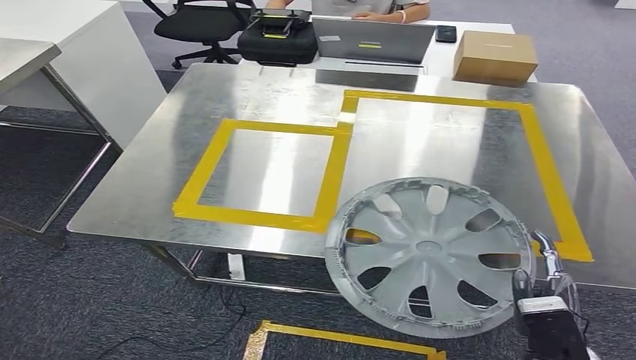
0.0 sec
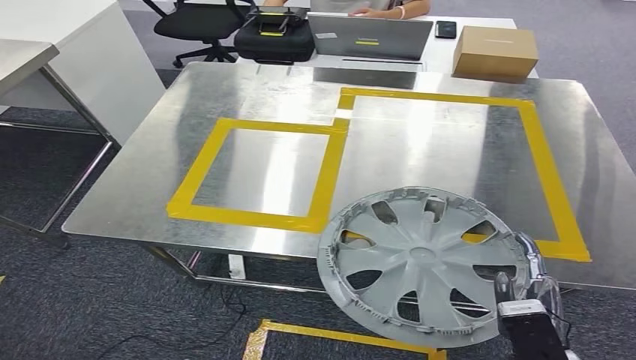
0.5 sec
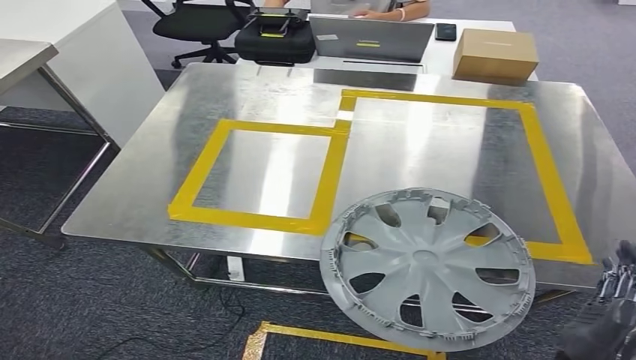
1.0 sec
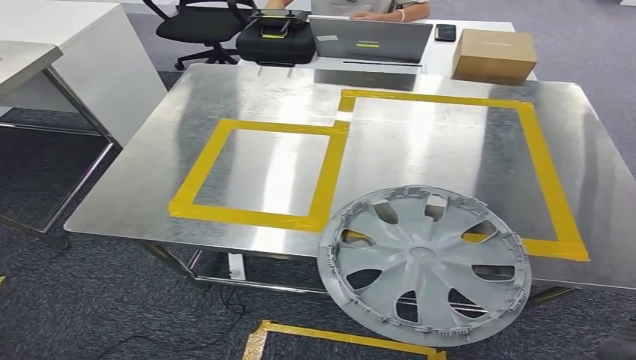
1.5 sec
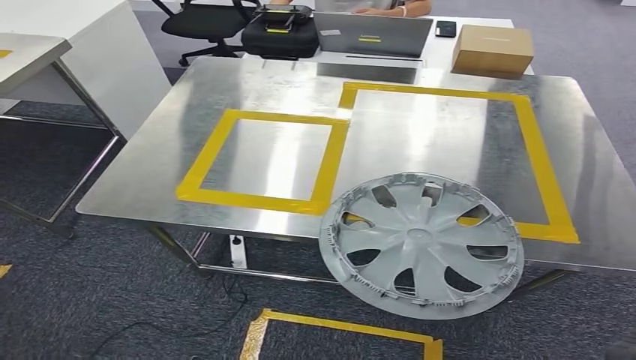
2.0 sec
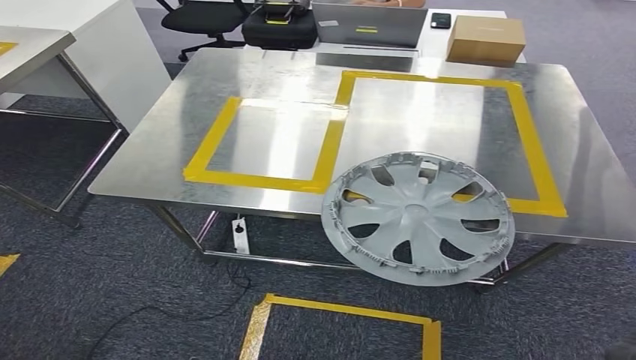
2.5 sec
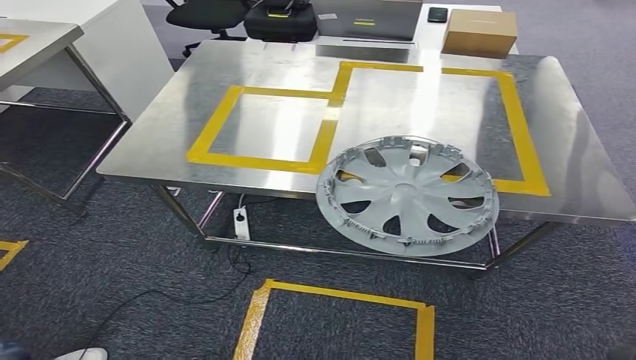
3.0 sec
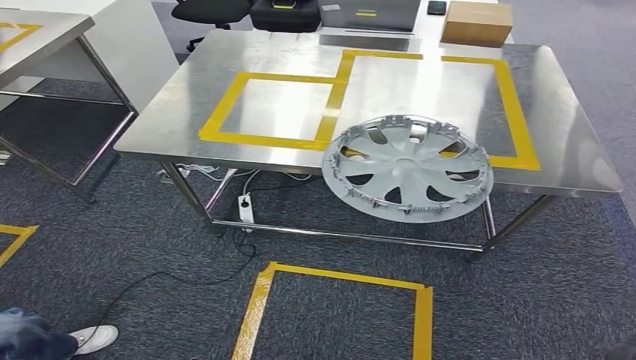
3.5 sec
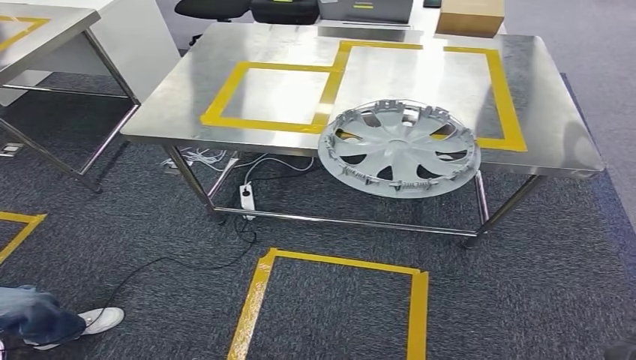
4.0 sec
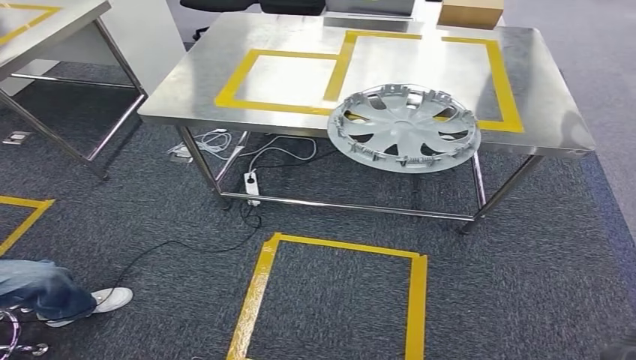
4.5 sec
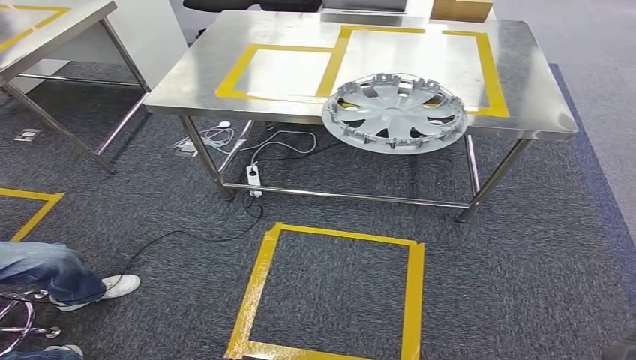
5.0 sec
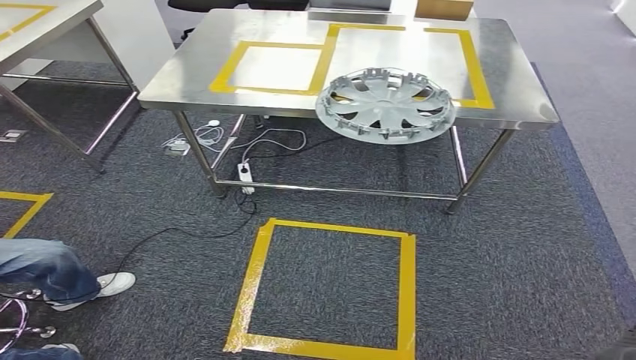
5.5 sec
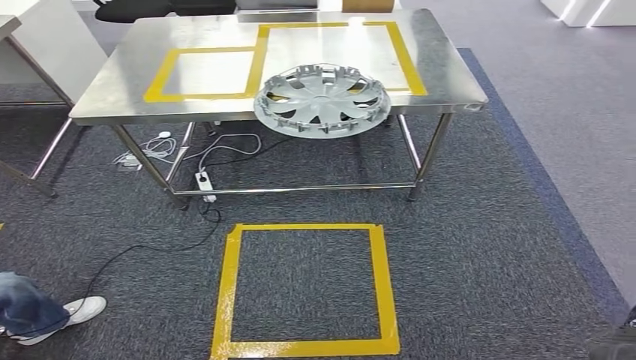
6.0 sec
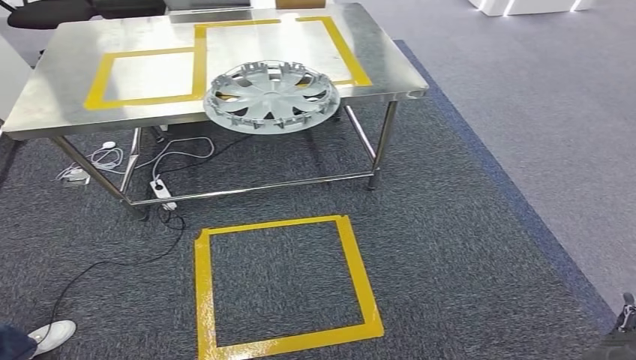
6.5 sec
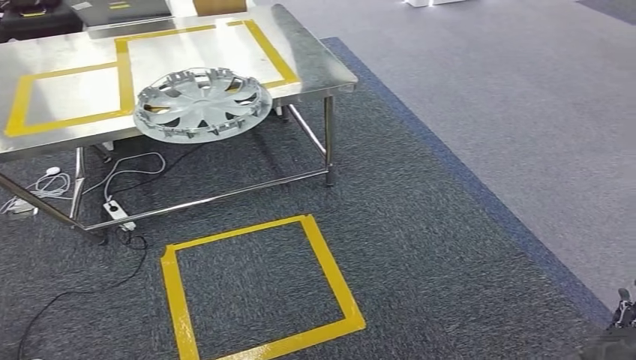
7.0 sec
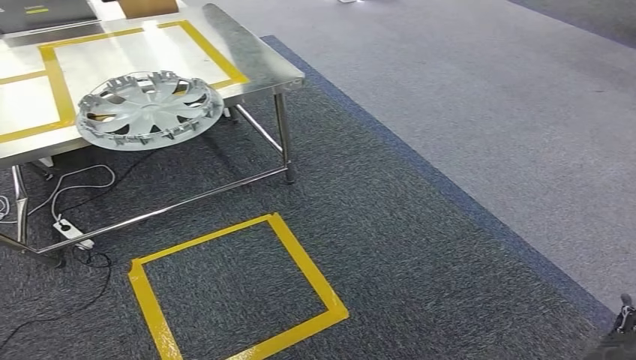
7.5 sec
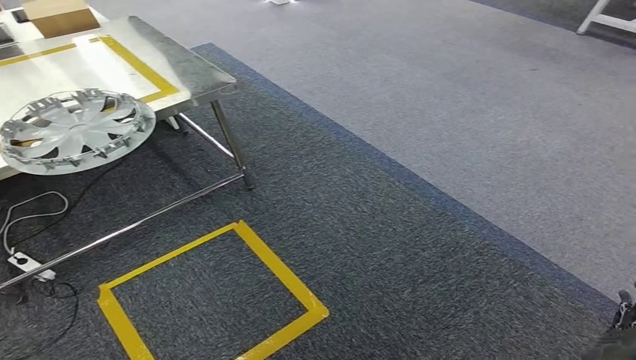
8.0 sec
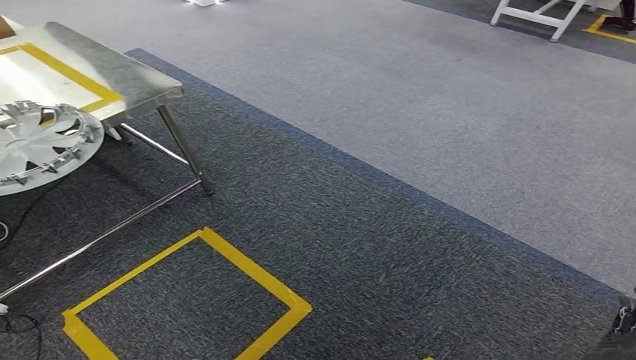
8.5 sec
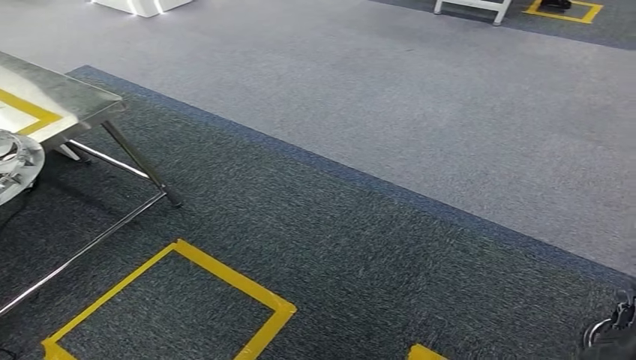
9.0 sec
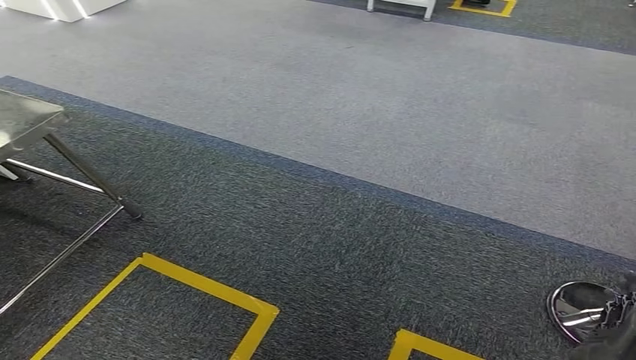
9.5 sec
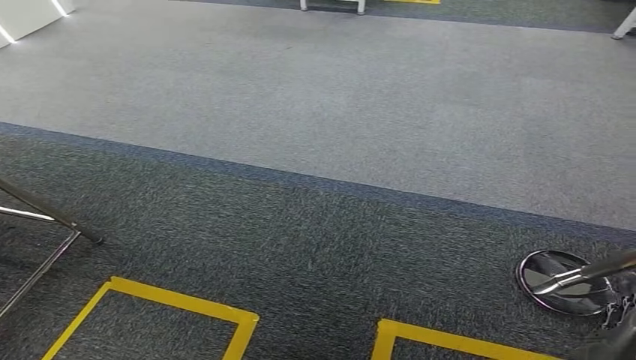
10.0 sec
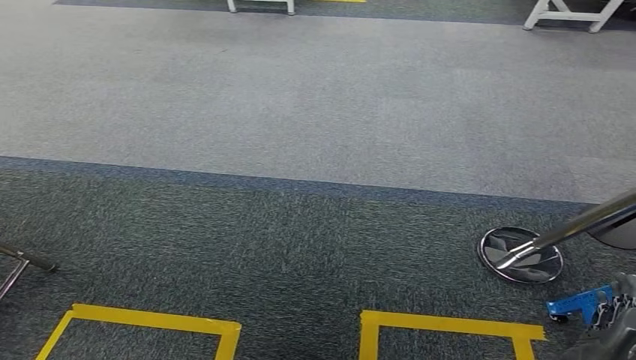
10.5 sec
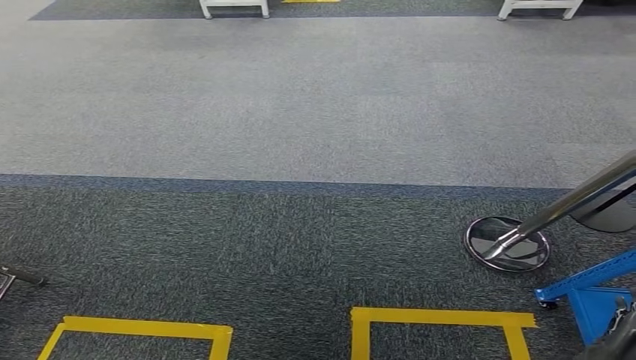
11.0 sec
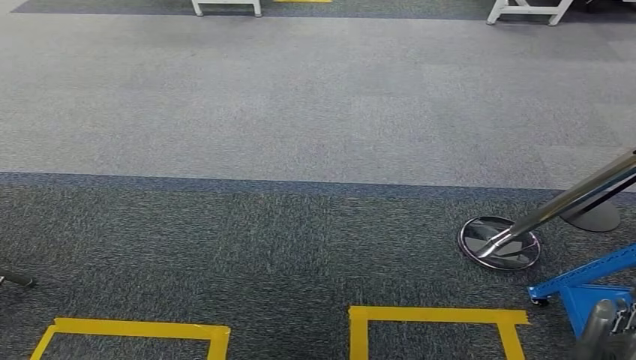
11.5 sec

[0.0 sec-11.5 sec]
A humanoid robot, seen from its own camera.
Step, 0.0 sec to 2.5 sec: Insert the small component into the corresponding slot on the workbench.
Step, 3.0 sec to 11.5 sec: Move to the initial position at the workbench.
